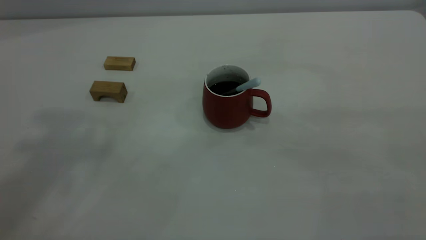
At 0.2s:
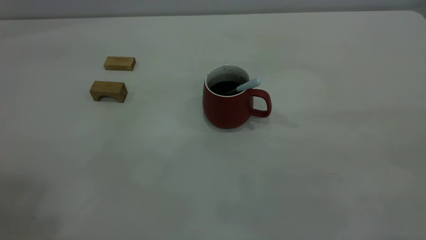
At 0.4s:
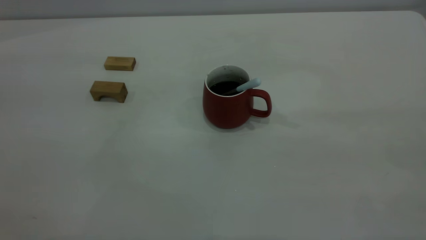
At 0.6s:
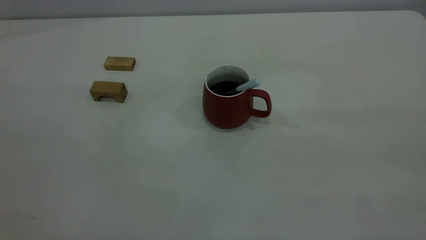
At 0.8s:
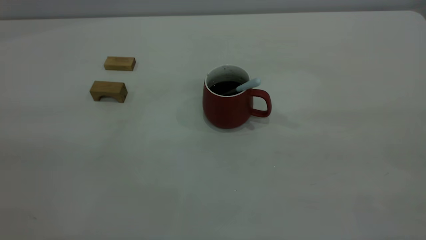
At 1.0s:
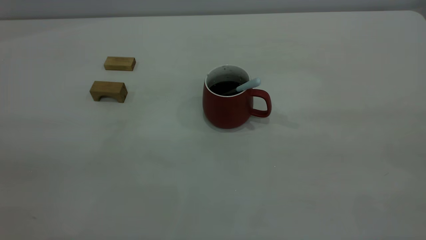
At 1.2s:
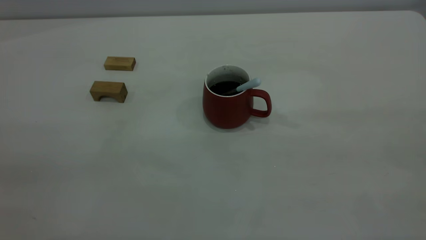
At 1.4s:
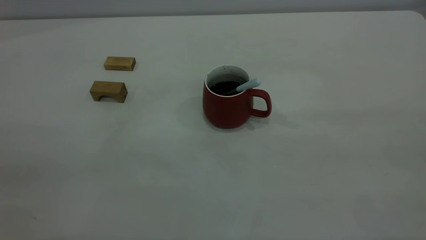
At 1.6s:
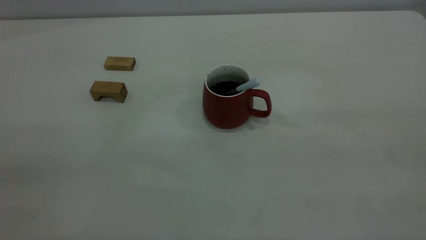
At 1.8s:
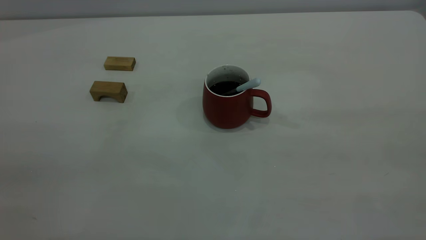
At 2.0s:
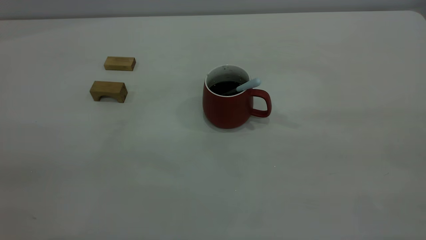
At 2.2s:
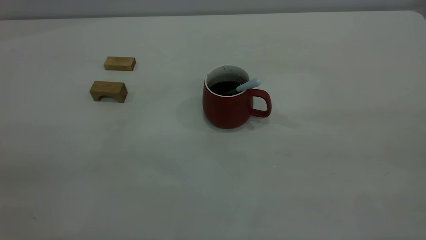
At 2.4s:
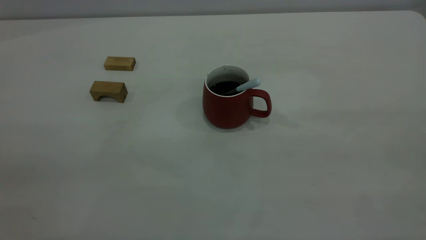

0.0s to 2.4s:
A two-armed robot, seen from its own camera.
1.2s to 2.4s: Both grippers stay put.

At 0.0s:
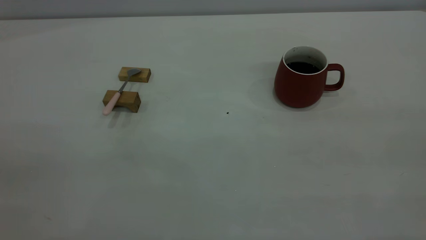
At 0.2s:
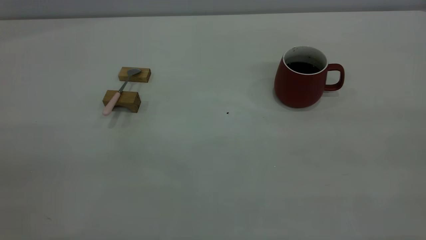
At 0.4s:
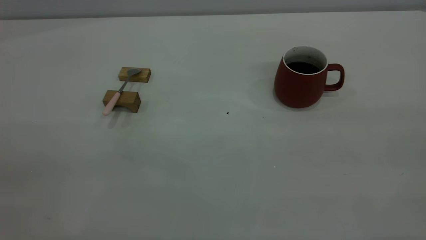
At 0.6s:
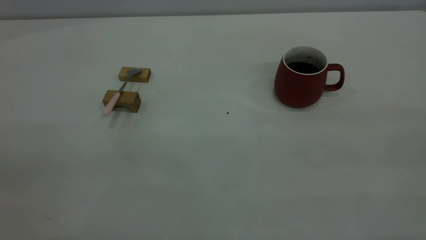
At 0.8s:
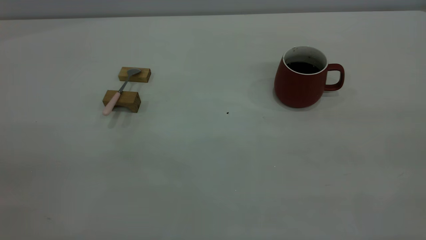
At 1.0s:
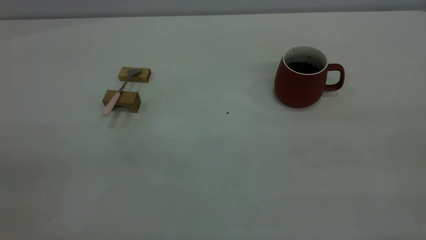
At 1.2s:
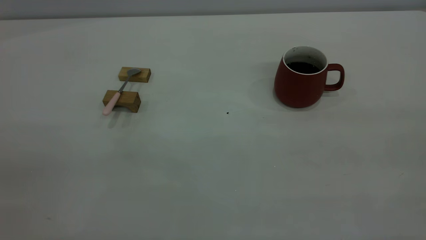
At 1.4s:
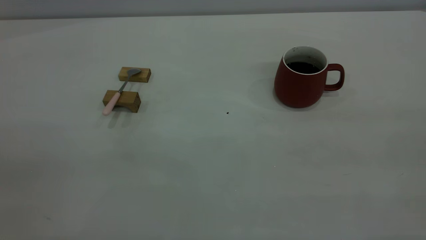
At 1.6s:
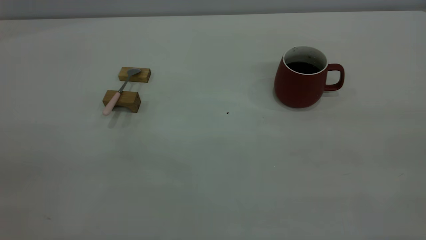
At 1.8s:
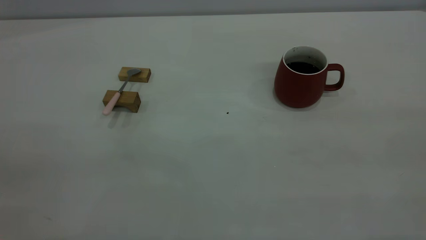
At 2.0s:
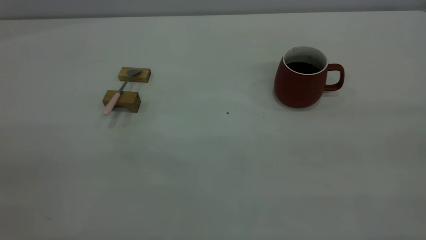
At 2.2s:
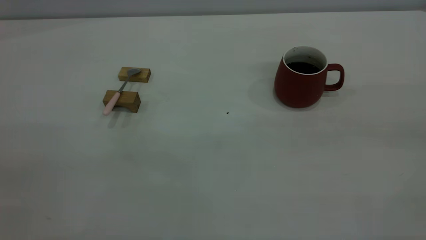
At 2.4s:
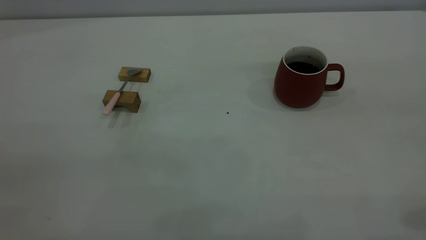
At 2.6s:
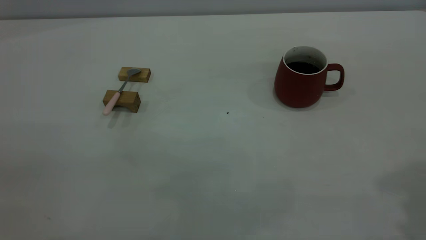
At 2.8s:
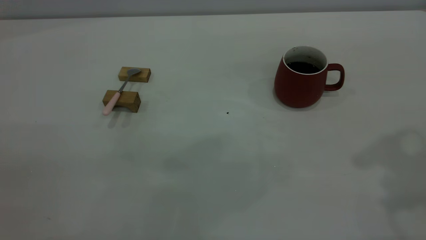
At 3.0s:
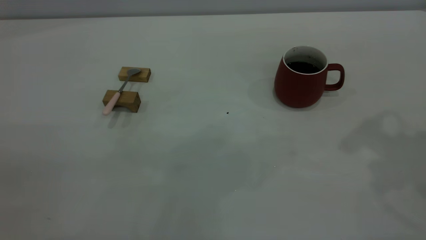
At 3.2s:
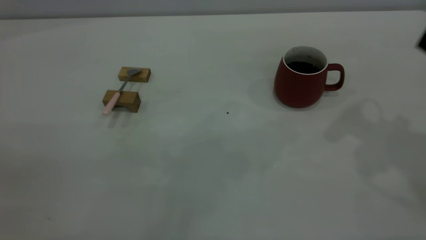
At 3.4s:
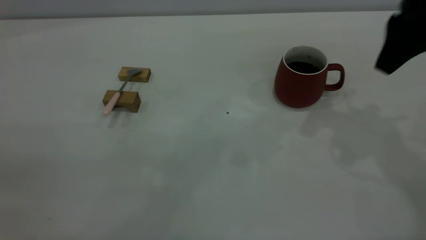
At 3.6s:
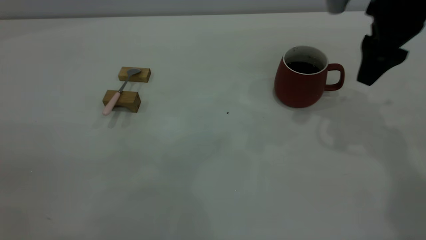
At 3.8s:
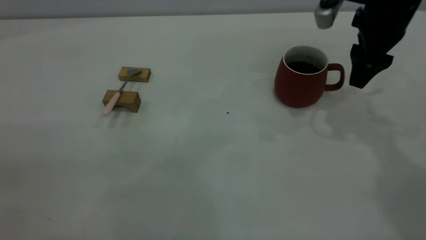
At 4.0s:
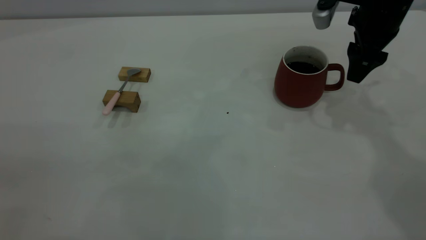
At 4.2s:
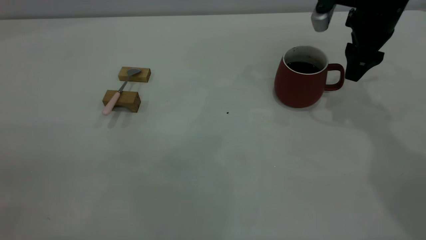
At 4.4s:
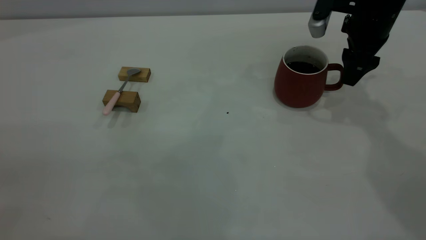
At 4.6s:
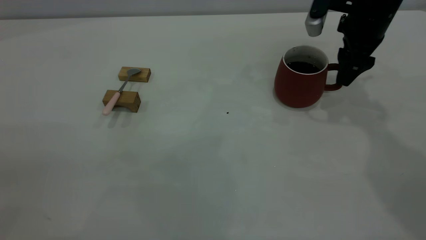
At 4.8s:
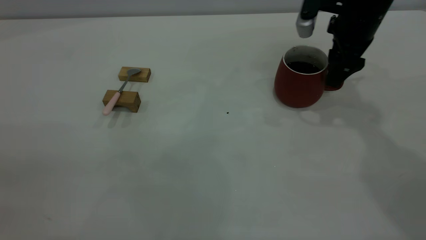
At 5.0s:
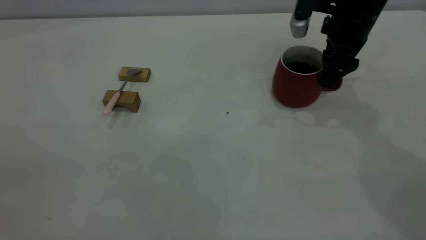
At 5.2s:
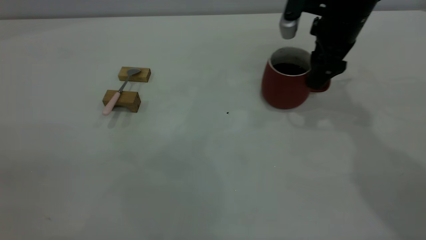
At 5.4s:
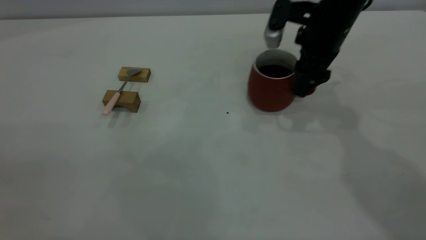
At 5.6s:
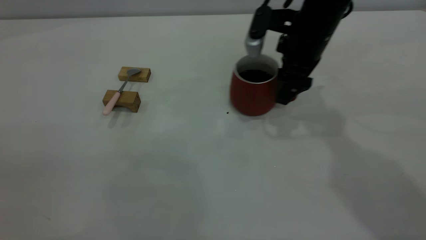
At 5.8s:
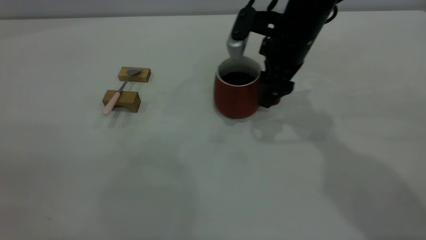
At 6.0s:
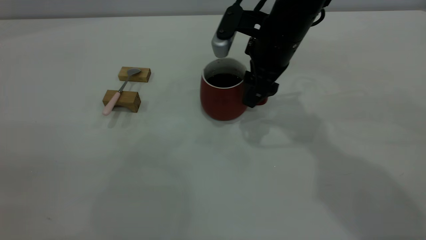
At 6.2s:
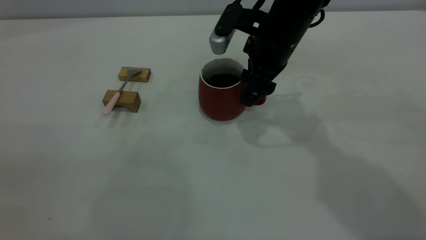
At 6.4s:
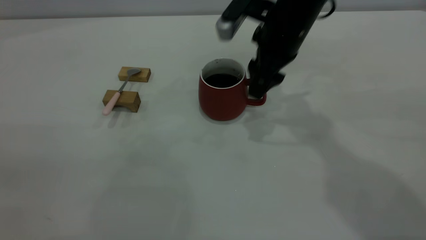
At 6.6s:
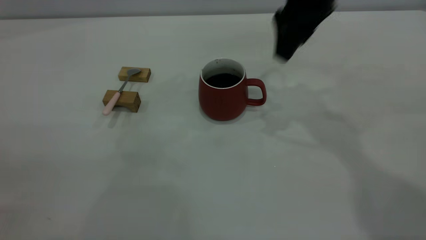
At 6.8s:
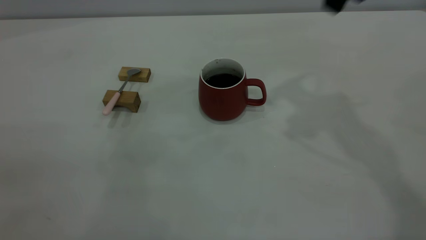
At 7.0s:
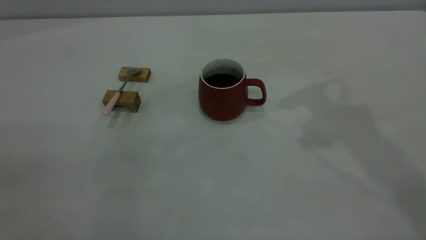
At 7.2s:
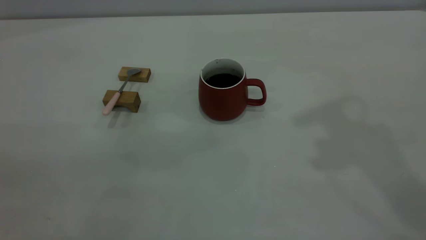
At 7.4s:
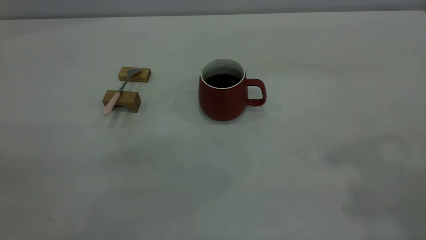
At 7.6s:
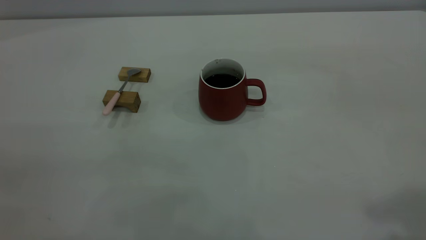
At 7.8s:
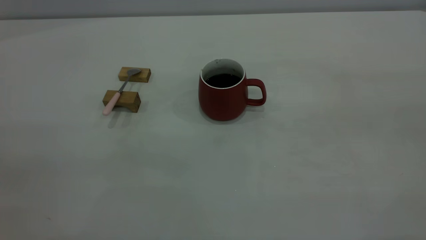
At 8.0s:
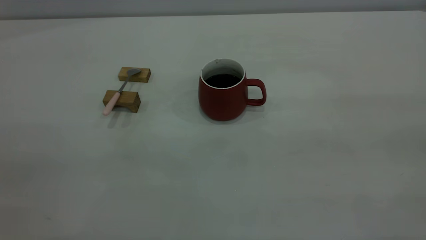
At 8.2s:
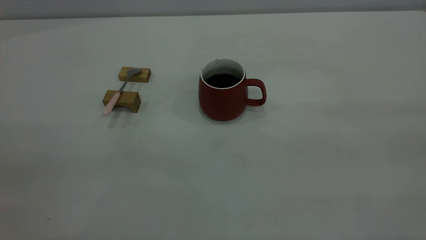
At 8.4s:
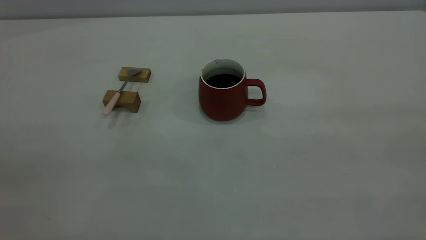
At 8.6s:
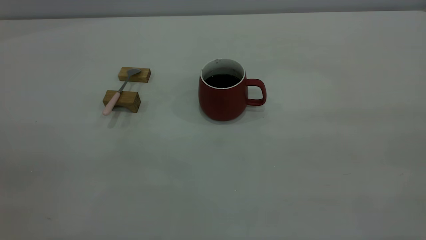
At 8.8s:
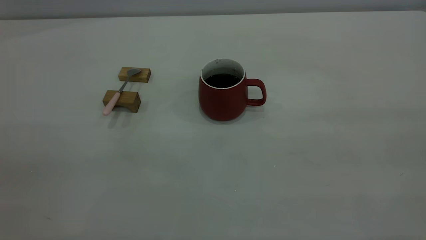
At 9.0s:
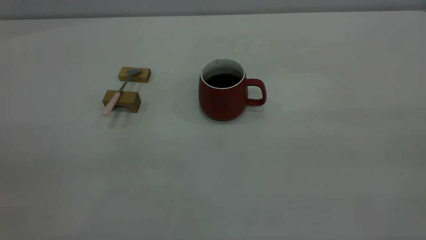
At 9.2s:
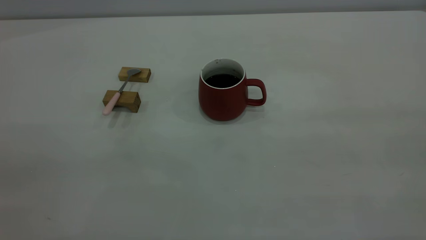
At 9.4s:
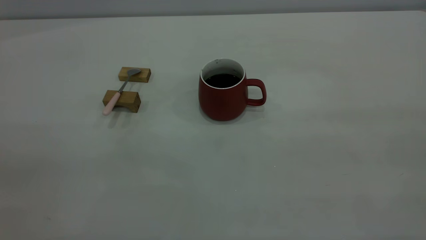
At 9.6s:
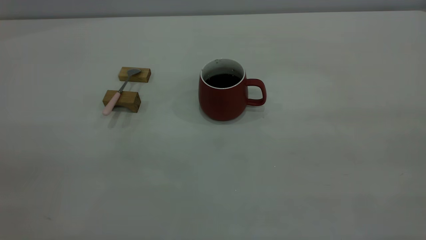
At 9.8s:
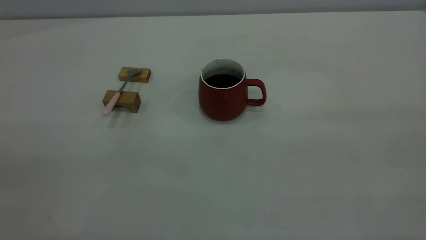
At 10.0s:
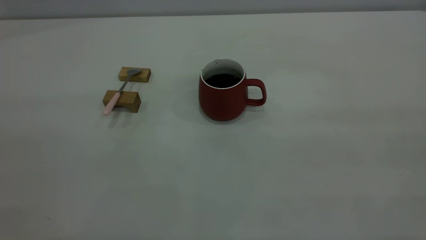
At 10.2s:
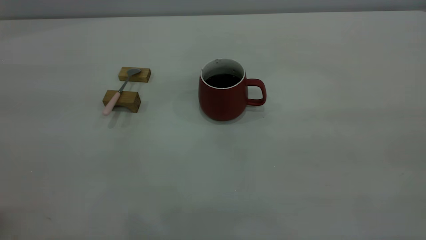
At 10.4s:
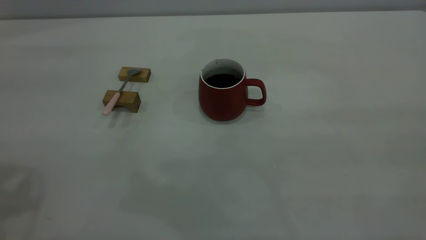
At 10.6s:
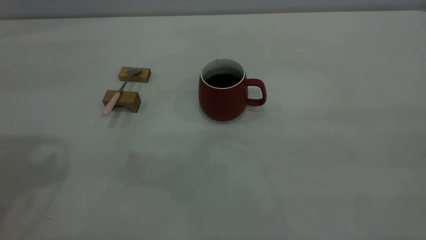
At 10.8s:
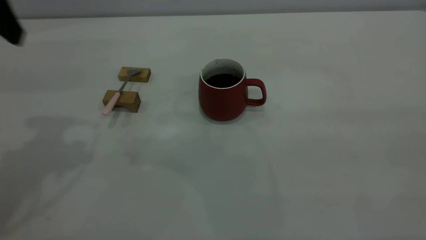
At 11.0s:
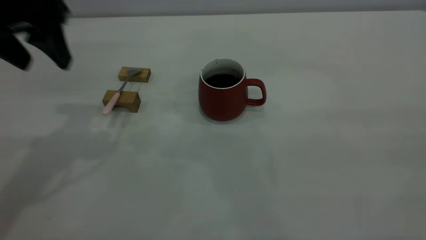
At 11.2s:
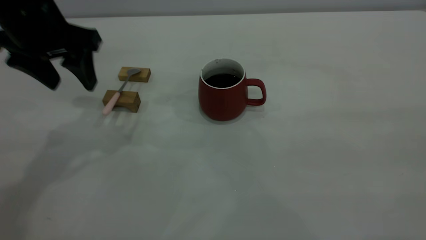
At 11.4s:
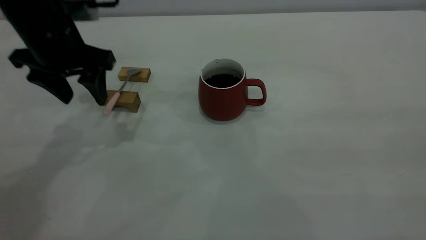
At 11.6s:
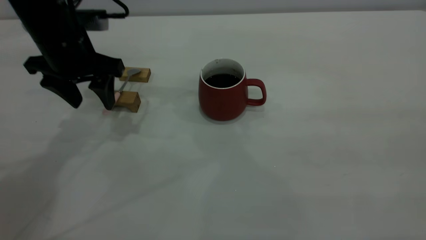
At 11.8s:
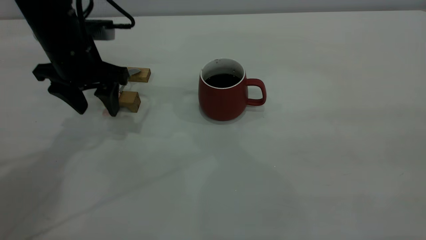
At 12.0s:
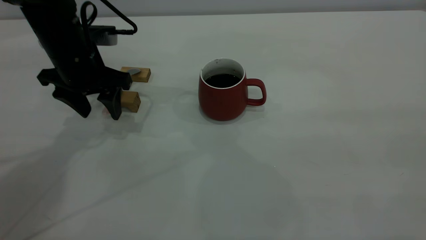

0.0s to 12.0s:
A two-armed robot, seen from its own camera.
Step, 0.0s to 6.4s: Move the cup with coffee to the center of view.
0.0s to 1.6s: The two grippers keep their place.
3.0s to 4.4s: The right gripper travels downward and forward by about 25 cm.
4.4s to 6.0s: The right gripper goes roughly 15 cm to the left.
6.0s to 7.6s: The right gripper heads upward, backward and to the right, covering approximately 40 cm.
10.4s to 12.0s: The left gripper goes some 30 cm downward and forward.

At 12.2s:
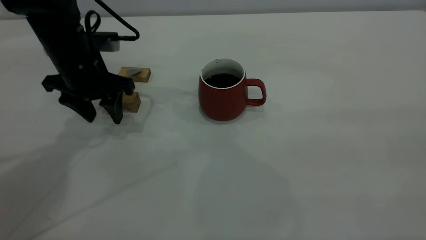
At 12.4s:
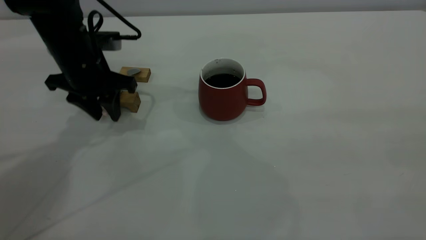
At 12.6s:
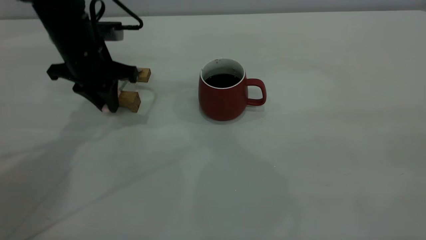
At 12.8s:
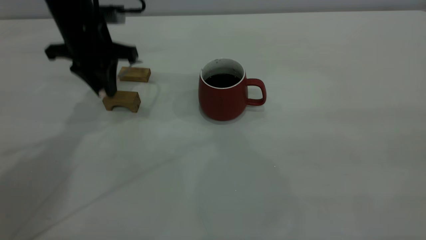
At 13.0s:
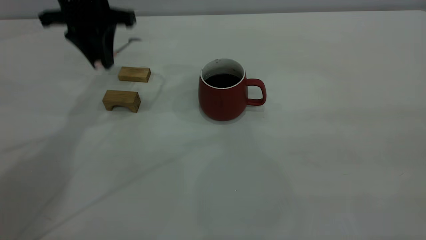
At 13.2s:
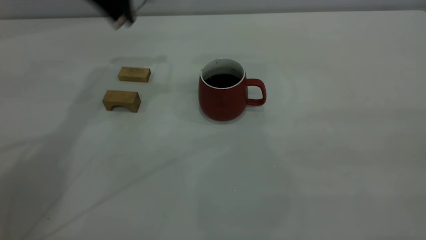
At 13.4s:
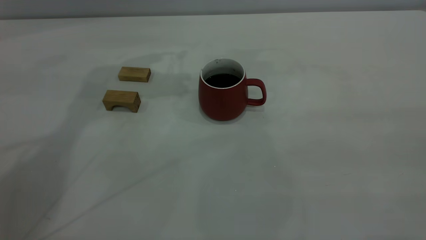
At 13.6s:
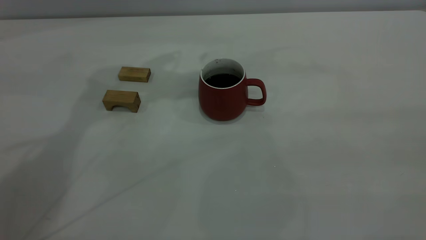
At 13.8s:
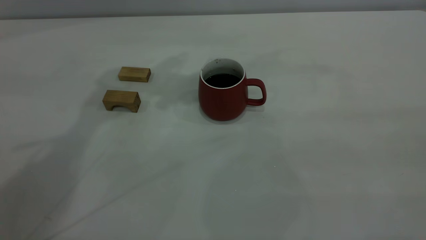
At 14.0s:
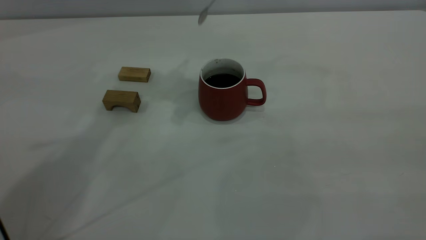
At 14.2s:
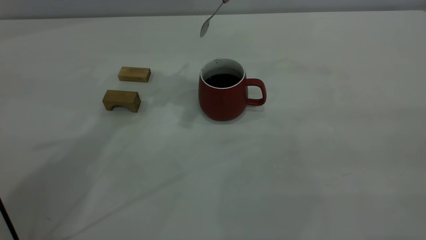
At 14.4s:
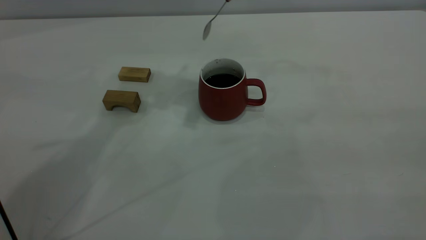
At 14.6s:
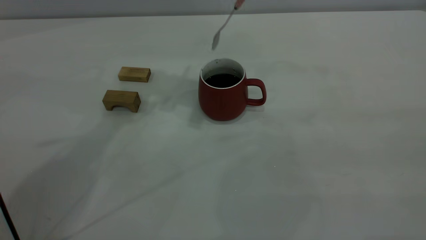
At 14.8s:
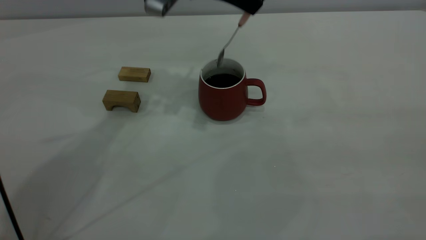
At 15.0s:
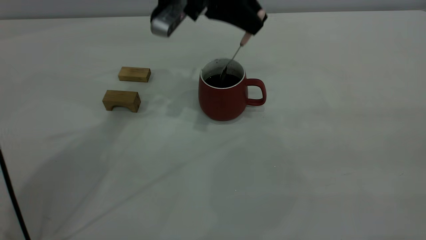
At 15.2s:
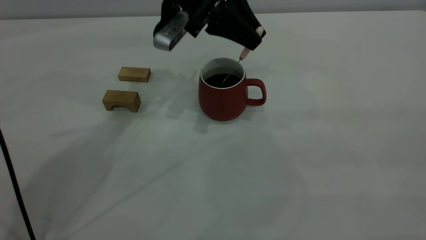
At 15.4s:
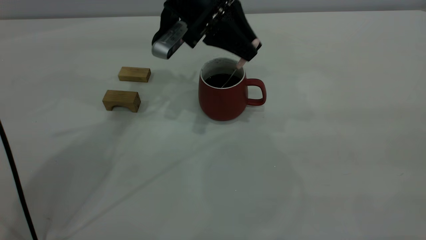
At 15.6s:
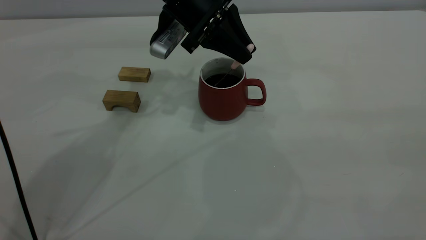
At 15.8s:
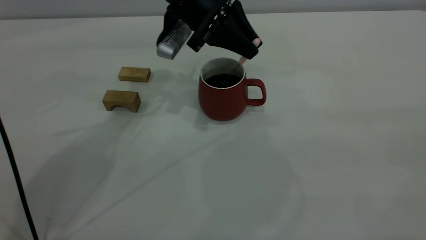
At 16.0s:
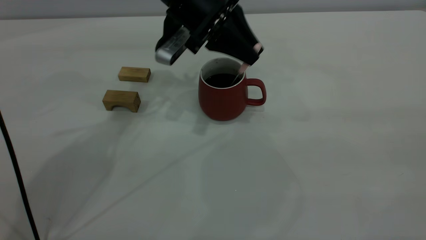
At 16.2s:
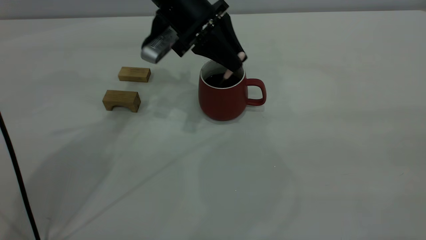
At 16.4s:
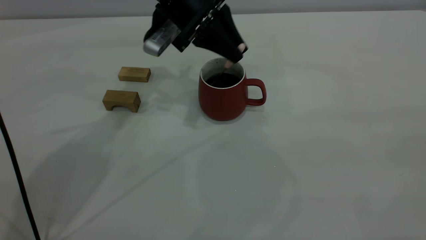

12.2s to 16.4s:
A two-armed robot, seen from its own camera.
12.2s to 13.6s: The left gripper heads upward and to the right, covering some 20 cm, and closes its fingers.
13.6s to 15.0s: The left gripper travels downward and to the right by about 10 cm.
15.0s to 16.4s: There are only small adjustments of the grippers.
